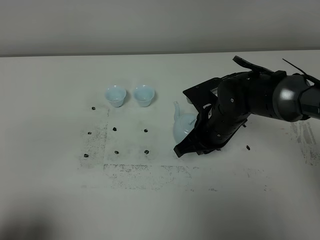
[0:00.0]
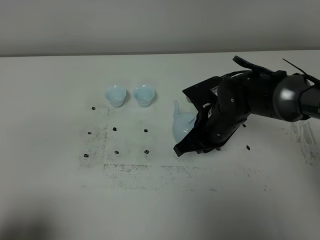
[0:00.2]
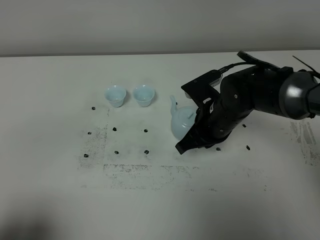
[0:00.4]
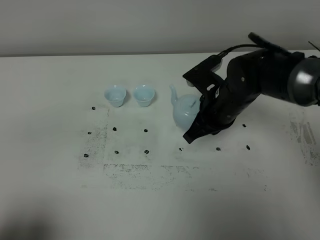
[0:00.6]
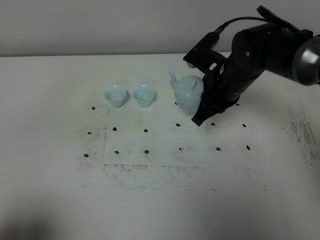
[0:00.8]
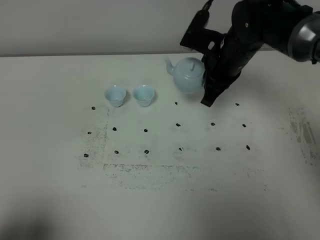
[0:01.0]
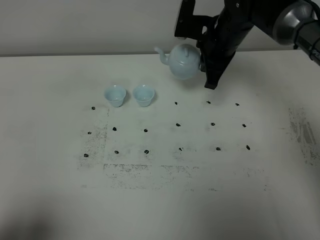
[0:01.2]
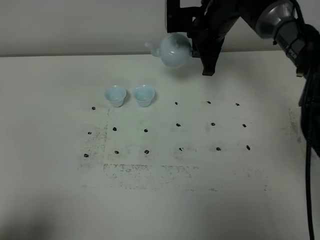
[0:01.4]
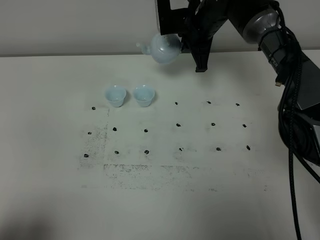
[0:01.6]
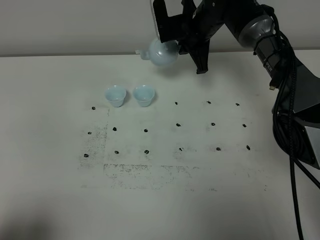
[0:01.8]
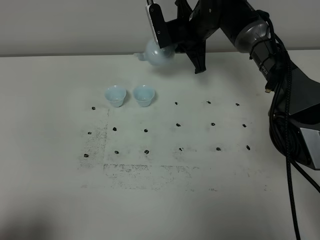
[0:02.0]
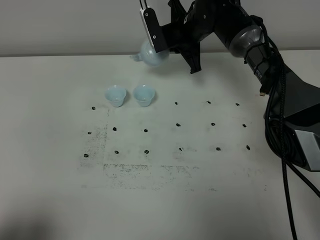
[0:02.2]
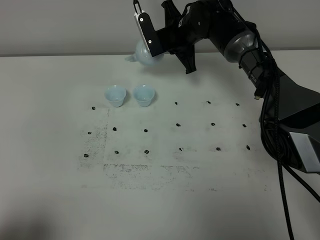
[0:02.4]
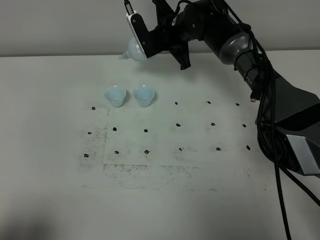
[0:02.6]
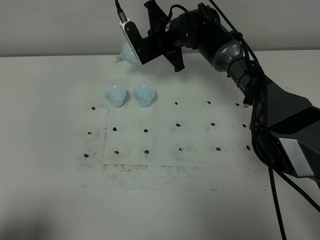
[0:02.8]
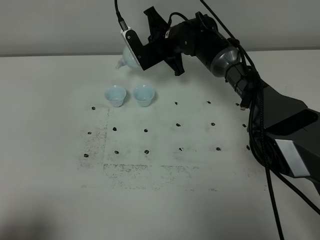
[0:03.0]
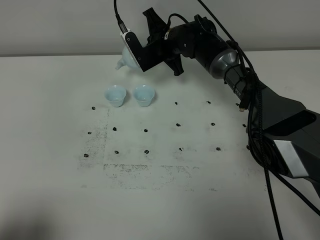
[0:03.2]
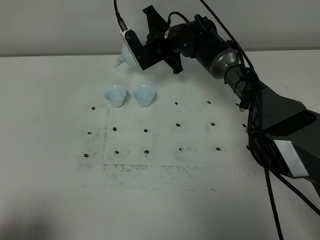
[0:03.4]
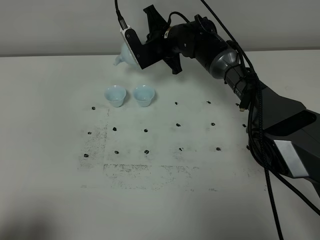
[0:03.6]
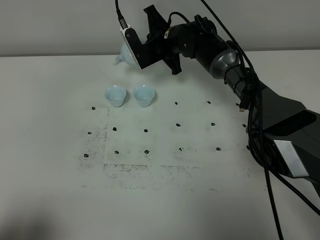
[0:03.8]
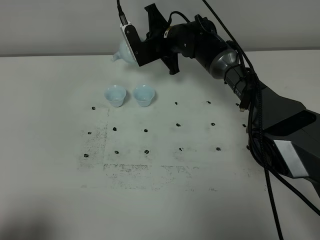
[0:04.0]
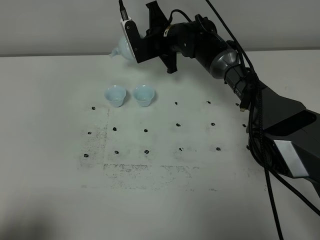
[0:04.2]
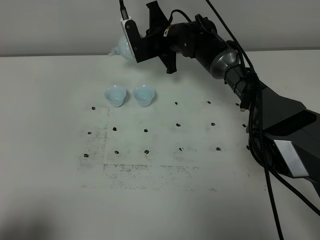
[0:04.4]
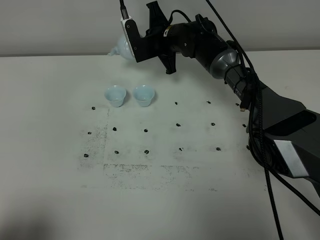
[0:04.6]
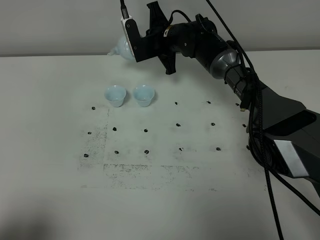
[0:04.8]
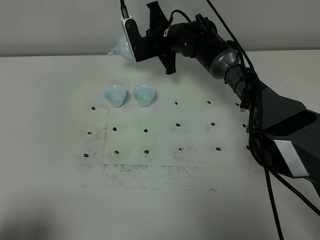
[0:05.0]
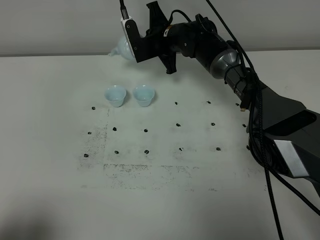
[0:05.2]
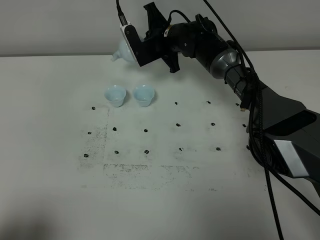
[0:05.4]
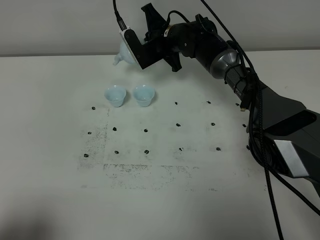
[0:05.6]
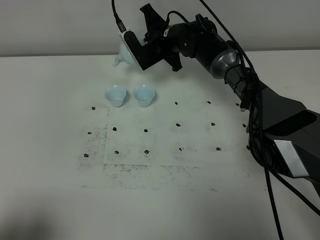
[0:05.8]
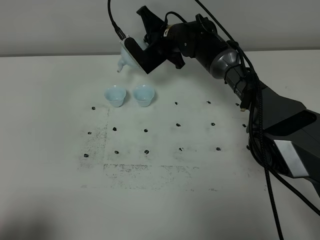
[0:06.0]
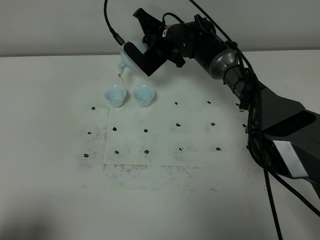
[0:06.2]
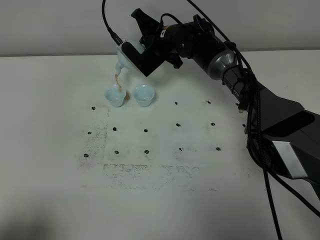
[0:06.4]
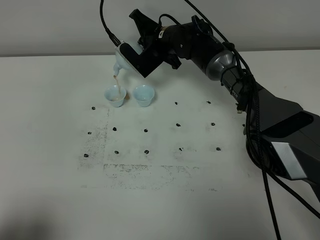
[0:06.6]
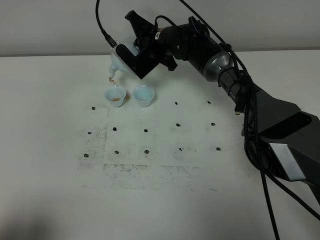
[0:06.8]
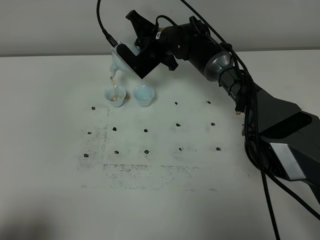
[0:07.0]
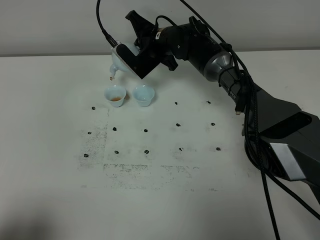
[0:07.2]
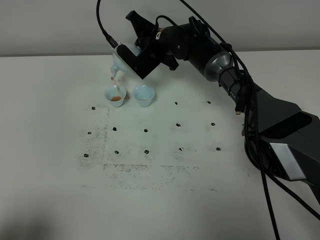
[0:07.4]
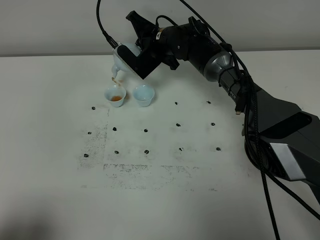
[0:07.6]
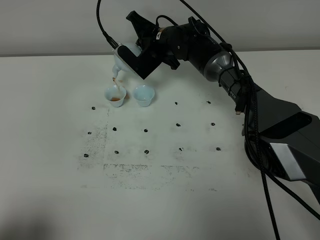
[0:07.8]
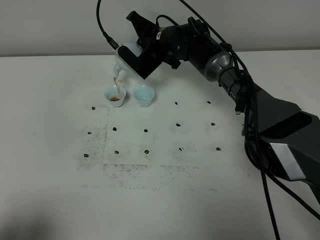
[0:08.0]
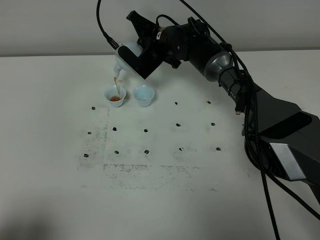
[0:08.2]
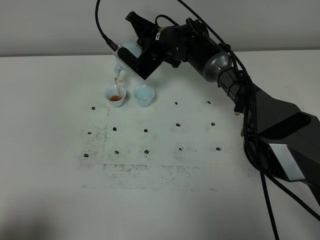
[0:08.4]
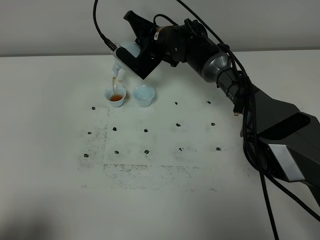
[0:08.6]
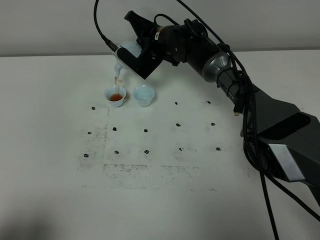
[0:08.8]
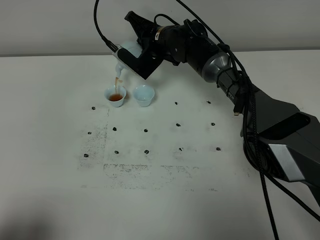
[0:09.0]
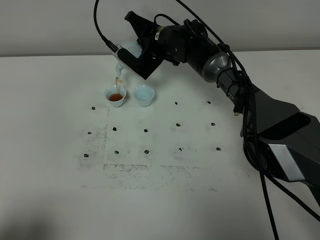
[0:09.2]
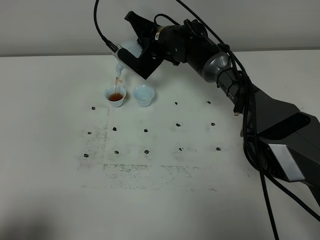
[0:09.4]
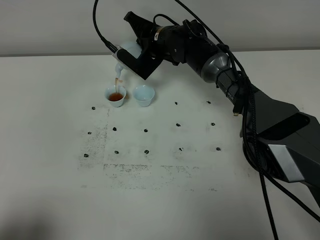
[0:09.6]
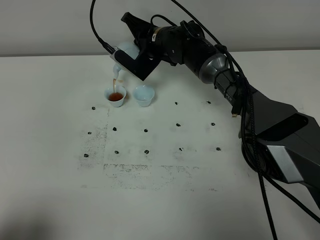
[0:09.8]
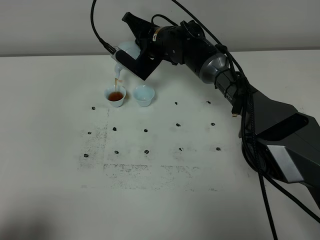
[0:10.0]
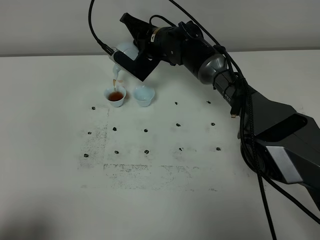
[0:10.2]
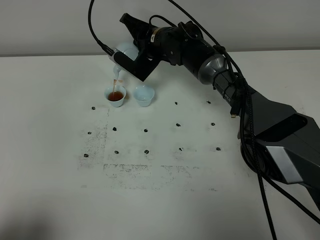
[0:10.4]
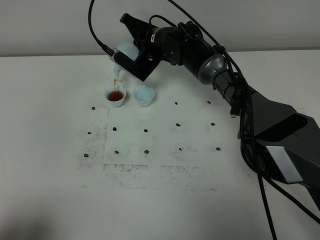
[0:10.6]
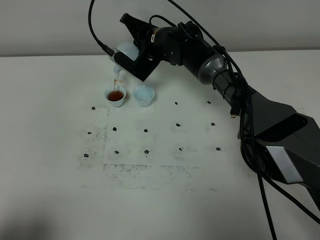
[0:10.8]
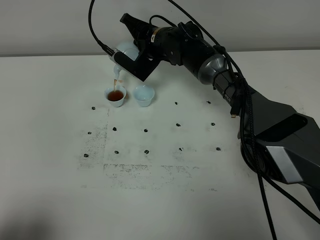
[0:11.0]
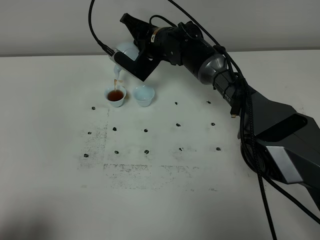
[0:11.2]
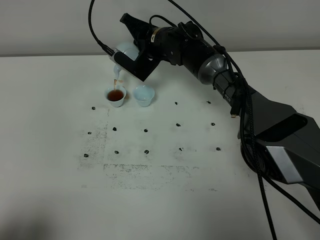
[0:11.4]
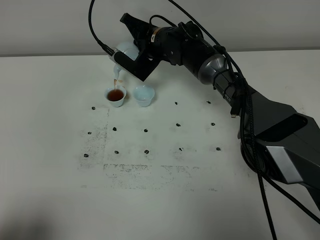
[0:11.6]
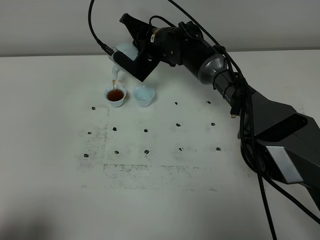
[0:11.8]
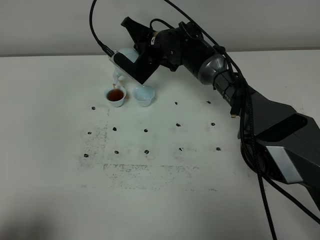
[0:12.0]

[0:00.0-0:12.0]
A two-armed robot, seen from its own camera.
Task of the whole recording: grasp the blue porcelain teapot and pour the tea into the two blue porcelain teacups one by one, put the blue porcelain teapot back in its original place.
0:00.0 to 0:01.6: The right gripper heads forward and upward, covering about 20 cm.
0:01.6 to 0:03.0: The right gripper is displaced downward and to the left by approximately 10 cm.
0:03.0 to 0:04.4: There are only small adjustments of the grippers.
0:06.0 to 0:09.0: The grippers make only small movements.
0:09.0 to 0:10.4: Both grippers stay put.
0:10.4 to 0:12.0: The grippers move only a little.

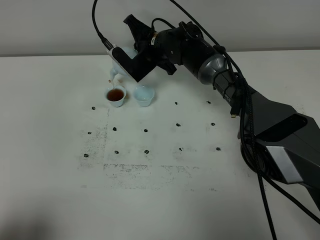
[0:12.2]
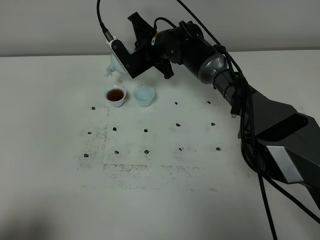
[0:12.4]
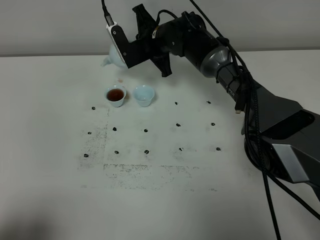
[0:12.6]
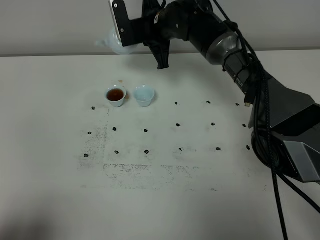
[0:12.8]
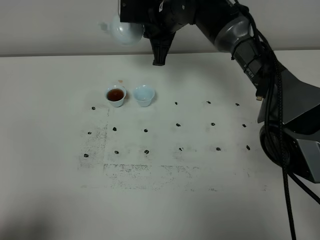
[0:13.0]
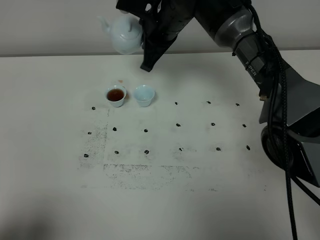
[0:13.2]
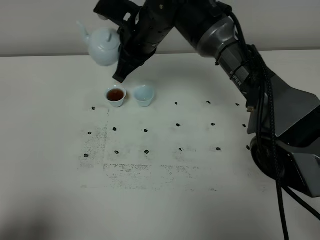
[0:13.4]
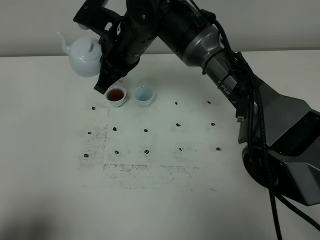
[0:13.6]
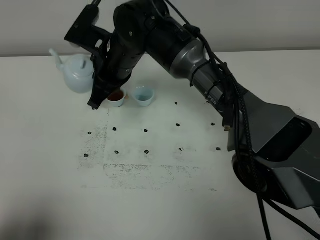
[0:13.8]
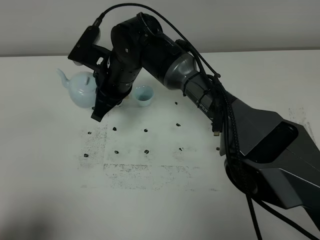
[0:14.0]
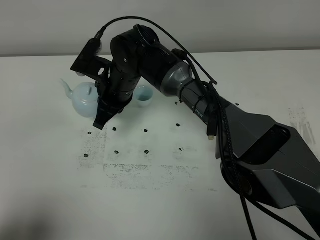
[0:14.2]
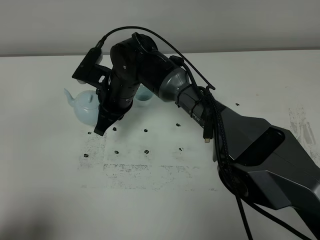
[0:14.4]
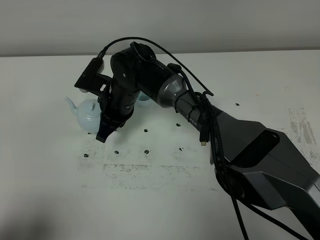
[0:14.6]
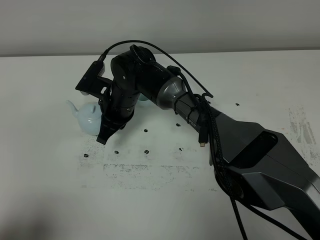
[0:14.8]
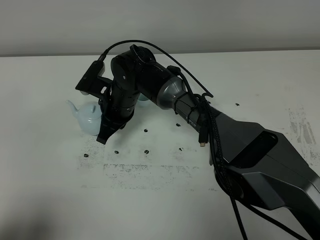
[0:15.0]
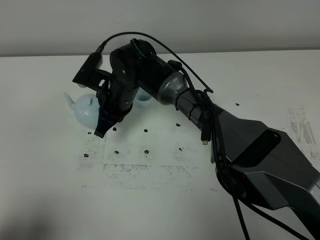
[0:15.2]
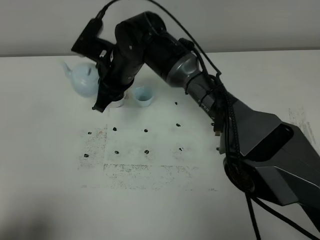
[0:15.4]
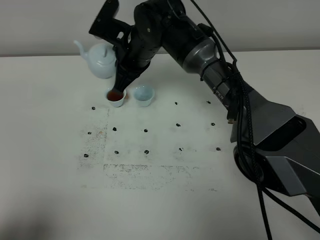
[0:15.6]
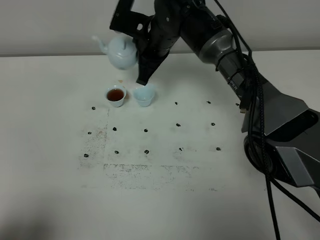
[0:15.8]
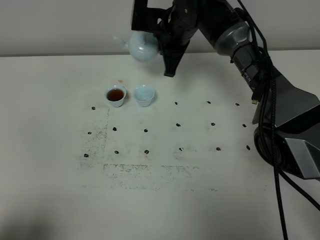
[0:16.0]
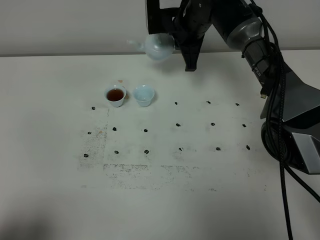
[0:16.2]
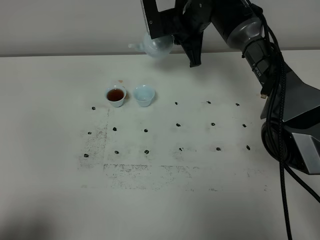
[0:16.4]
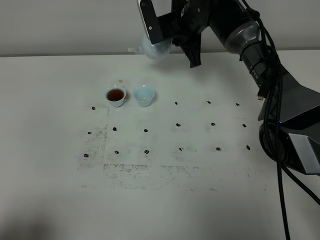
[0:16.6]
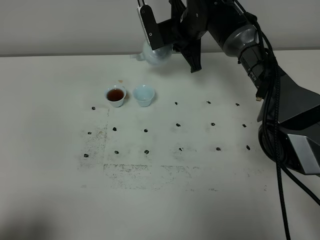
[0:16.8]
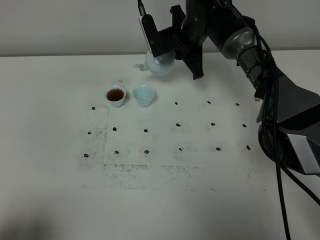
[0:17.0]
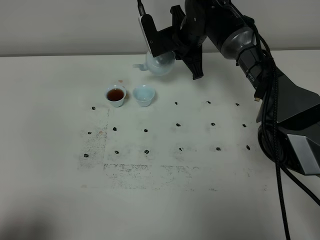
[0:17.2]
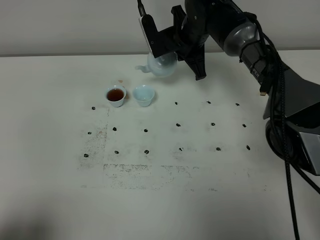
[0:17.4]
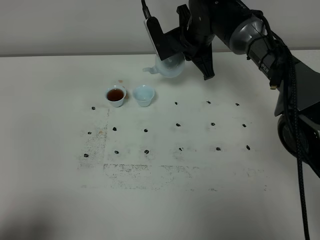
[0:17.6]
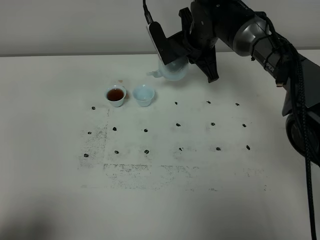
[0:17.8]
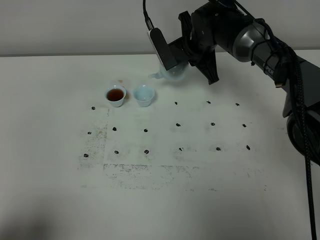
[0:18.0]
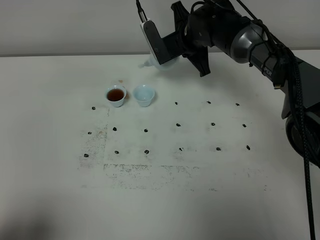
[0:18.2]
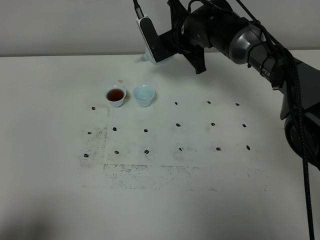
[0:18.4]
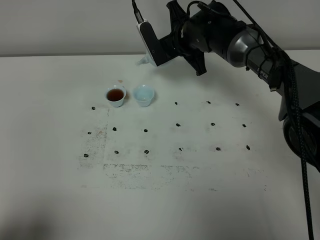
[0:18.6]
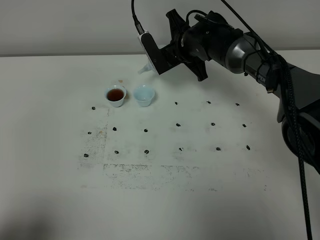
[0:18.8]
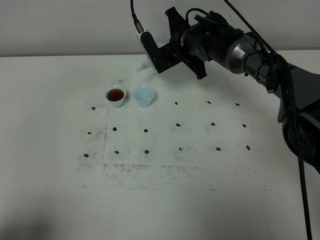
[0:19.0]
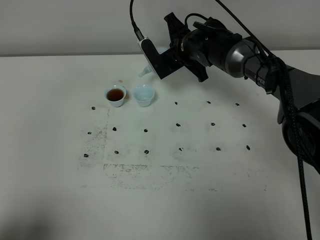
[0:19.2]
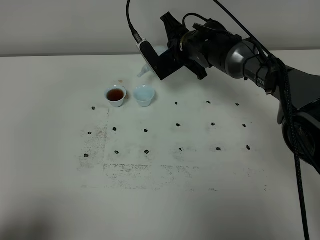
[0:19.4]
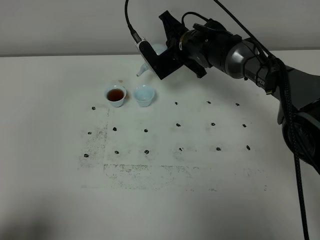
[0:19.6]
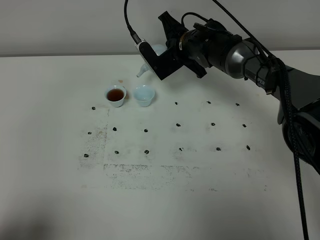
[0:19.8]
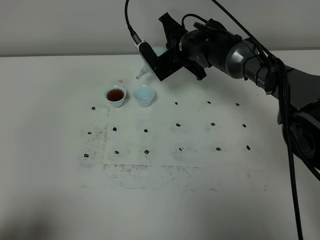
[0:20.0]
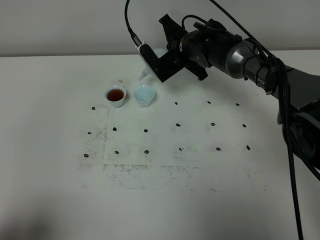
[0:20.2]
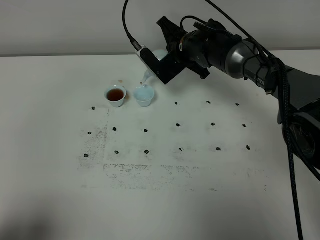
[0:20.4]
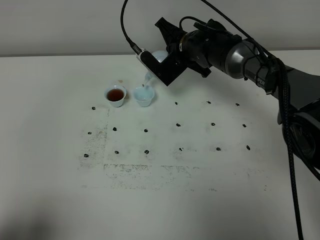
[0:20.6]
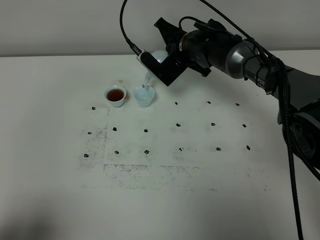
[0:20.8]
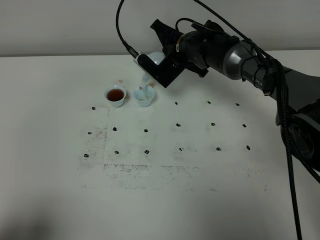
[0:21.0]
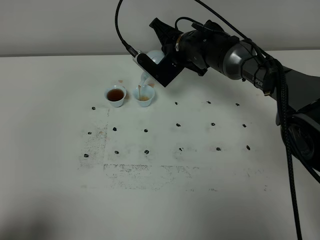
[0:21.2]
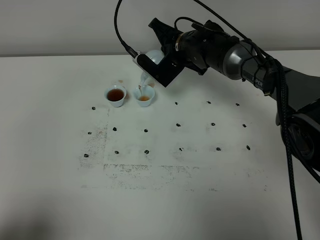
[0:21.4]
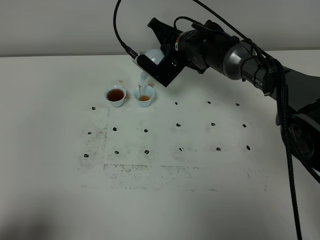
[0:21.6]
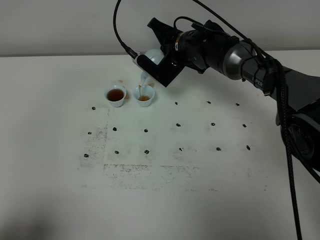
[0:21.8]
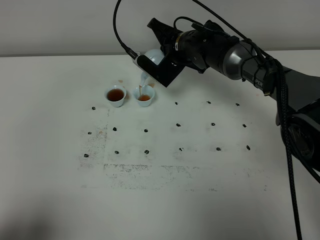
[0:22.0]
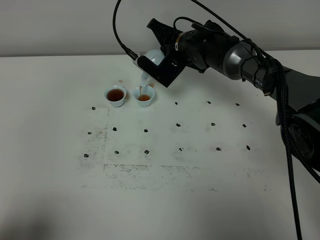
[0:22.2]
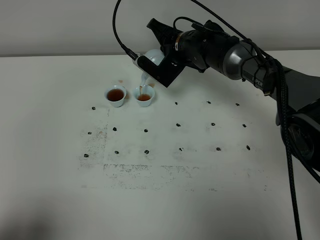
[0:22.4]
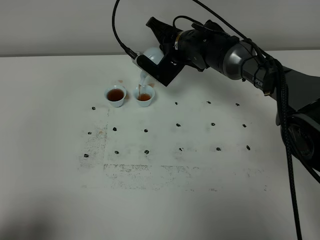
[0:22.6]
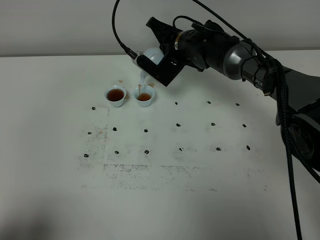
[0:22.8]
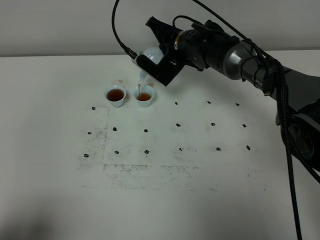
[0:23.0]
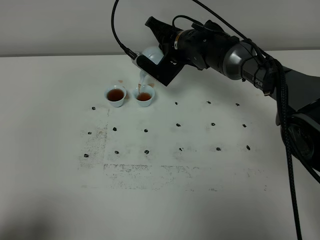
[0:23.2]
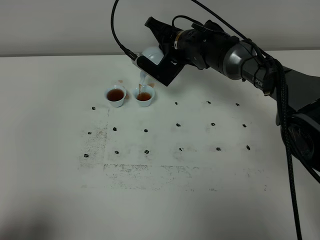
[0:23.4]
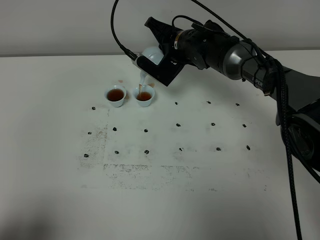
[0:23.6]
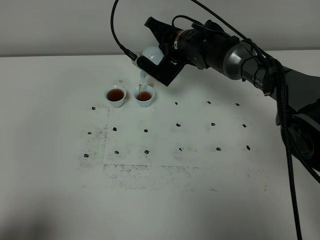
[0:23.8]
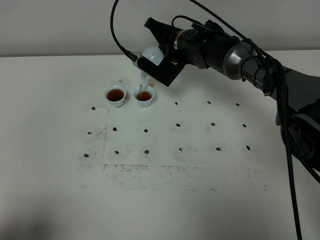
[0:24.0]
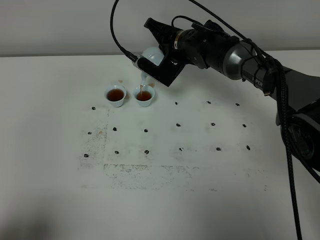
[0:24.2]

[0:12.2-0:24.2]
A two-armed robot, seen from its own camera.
Task of the whole recording: grasp the blue porcelain teapot and pour the tea into the two blue porcelain teacups one by one, put the blue porcelain teapot back in its original place.
0:12.2 to 0:13.8: The right gripper is displaced backward, to the left and upward by roughly 15 cm.
0:13.8 to 0:15.2: The right gripper moves downward, approximately 5 cm.
0:15.2 to 0:16.6: The right gripper shifts approximately 20 cm to the right, forward and upward.
0:16.6 to 0:18.2: There are only small adjustments of the grippers.
0:18.2 to 0:19.8: There are only small adjustments of the grippers.
0:19.8 to 0:22.6: The grippers stay close to where they were, moving slightly.
0:22.6 to 0:24.2: The two grippers keep their place.
